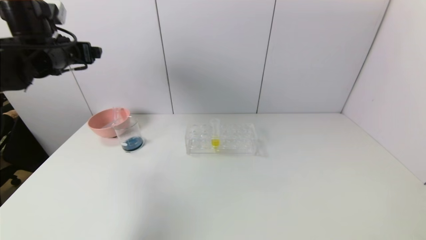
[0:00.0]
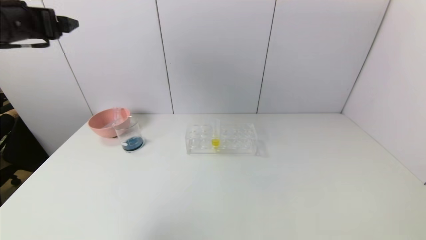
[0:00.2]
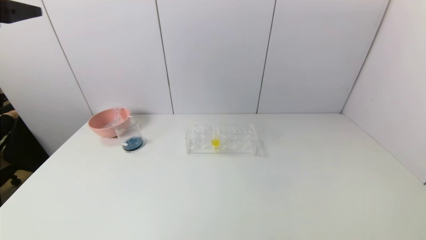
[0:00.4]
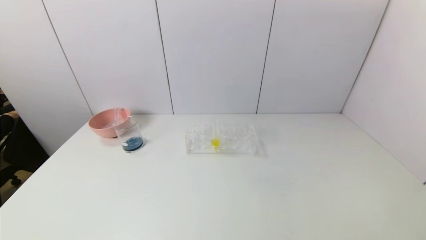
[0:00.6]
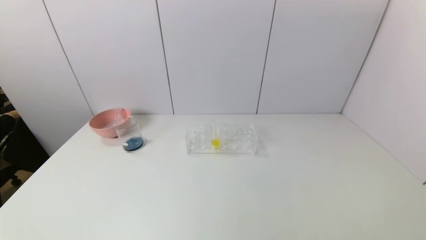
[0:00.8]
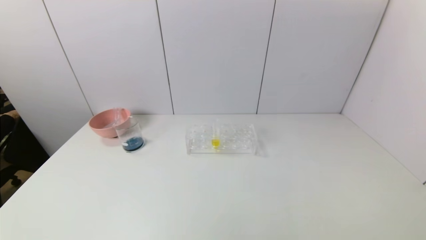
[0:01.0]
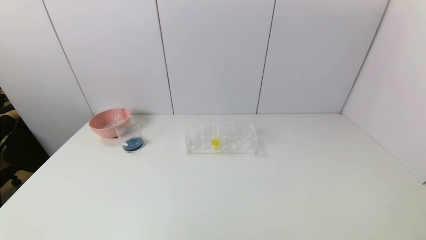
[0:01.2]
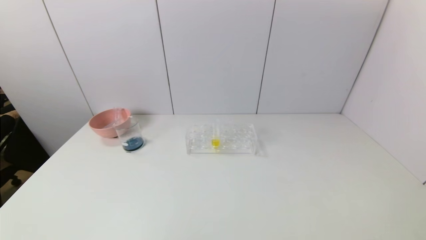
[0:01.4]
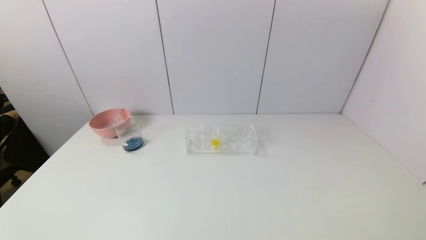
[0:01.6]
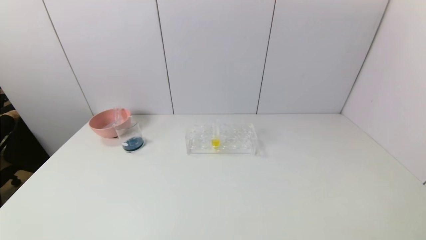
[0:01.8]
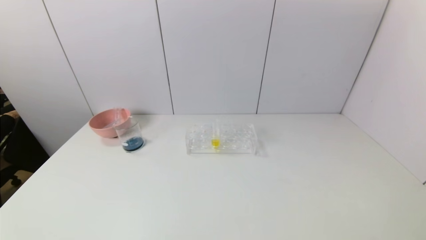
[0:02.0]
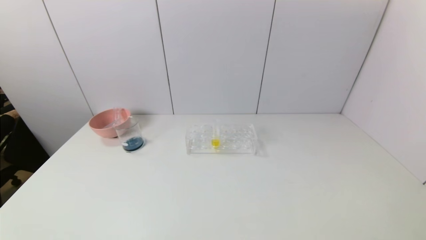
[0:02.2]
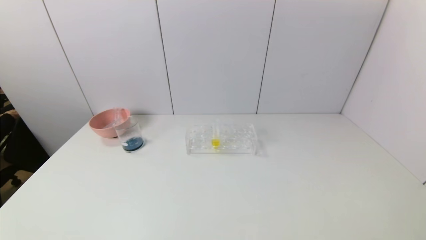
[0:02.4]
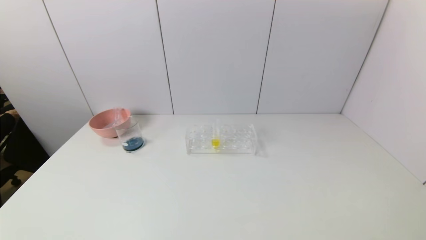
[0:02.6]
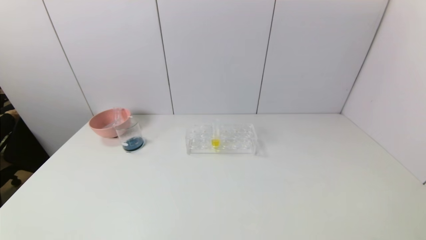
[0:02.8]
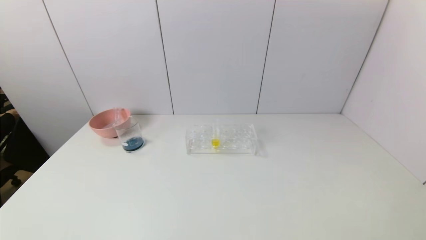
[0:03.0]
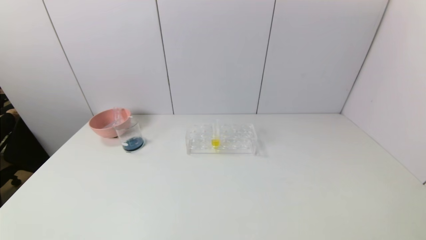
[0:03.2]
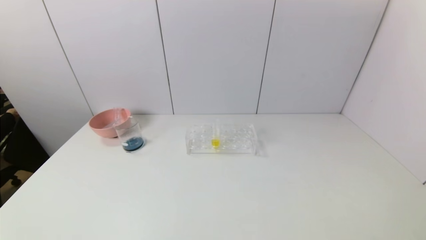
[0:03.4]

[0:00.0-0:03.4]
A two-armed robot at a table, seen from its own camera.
Task of the whole recording: pick up the test tube with red pigment and the test tube with blue pigment by grippers and pour them into the container.
0:00.0 to 0:01.6: The left gripper goes about 50 cm backward and downward.
